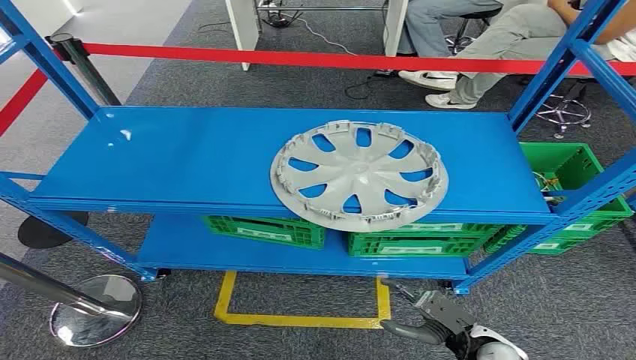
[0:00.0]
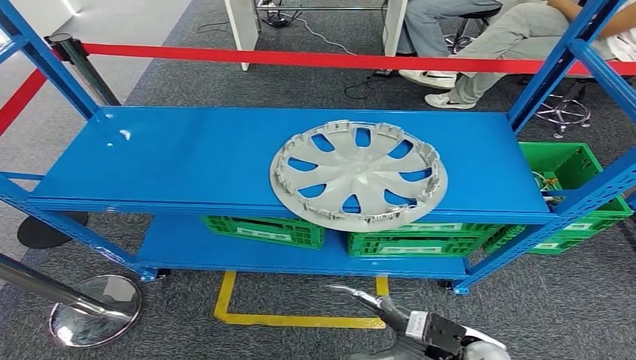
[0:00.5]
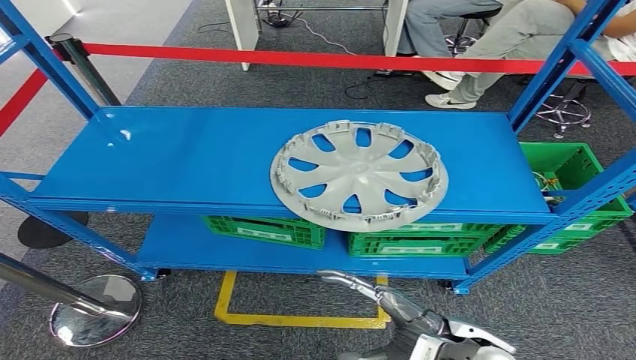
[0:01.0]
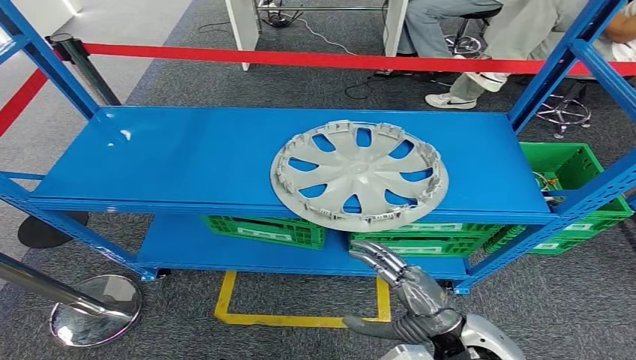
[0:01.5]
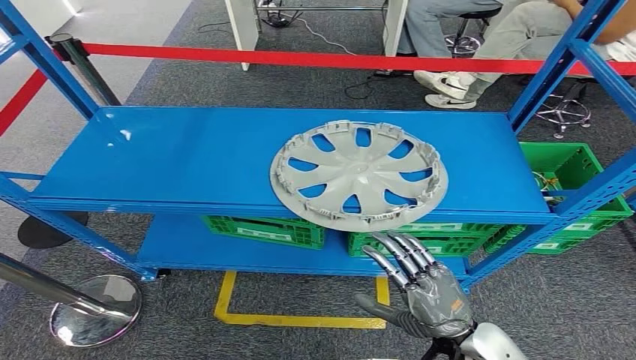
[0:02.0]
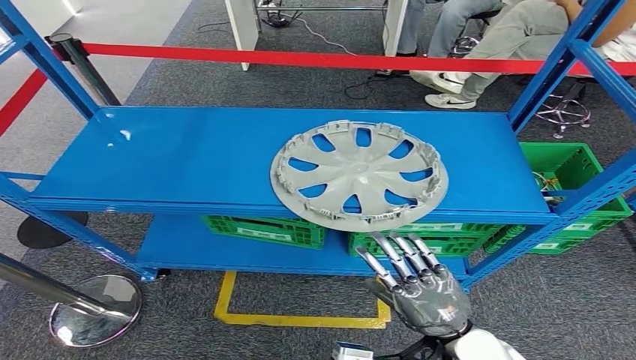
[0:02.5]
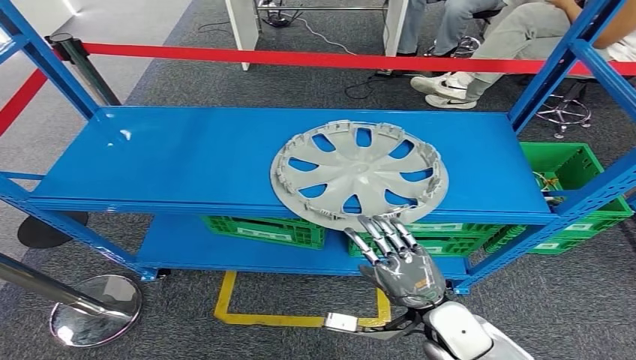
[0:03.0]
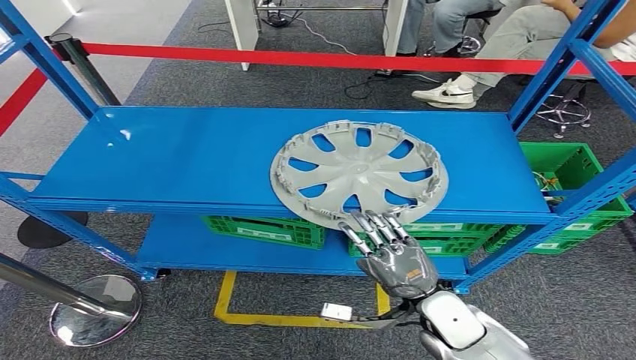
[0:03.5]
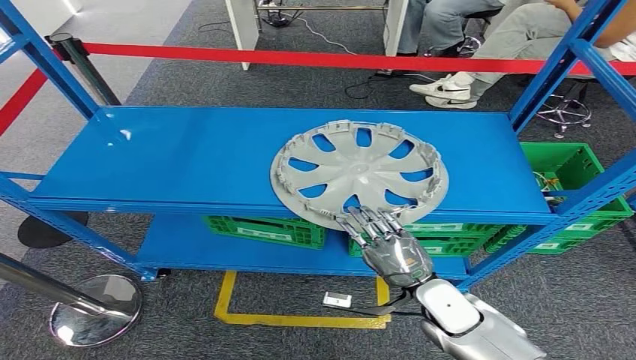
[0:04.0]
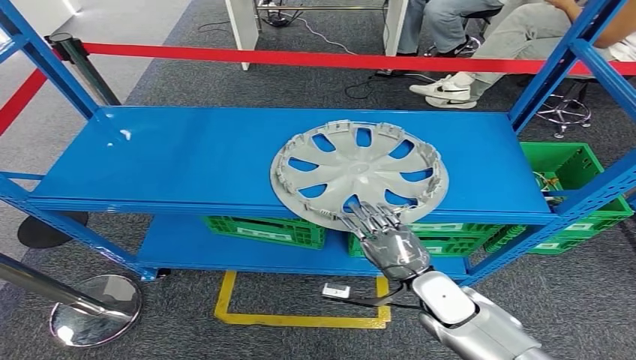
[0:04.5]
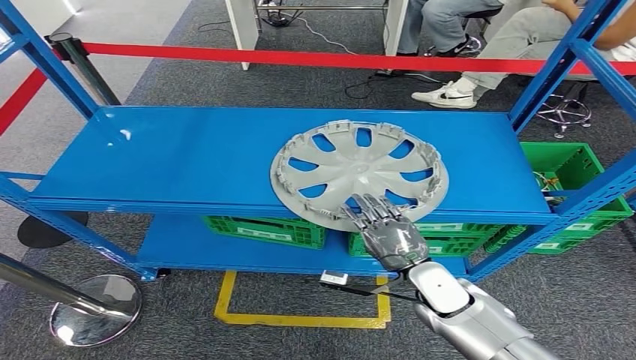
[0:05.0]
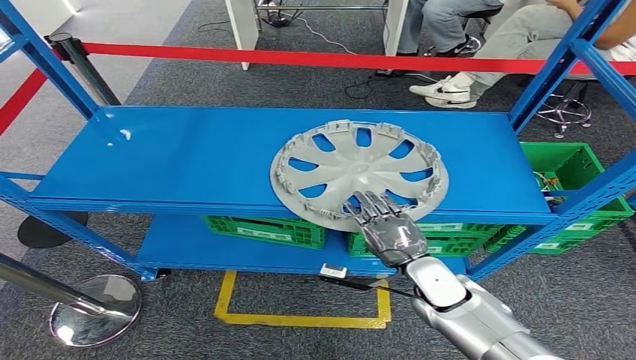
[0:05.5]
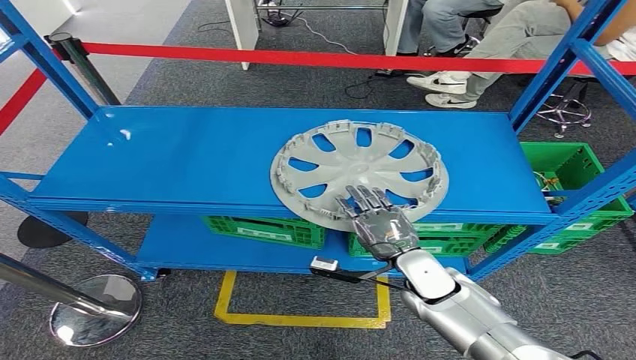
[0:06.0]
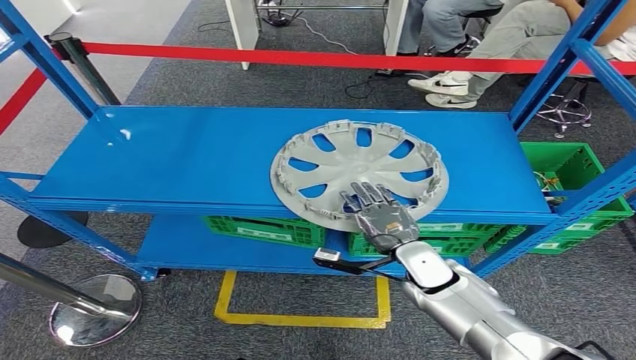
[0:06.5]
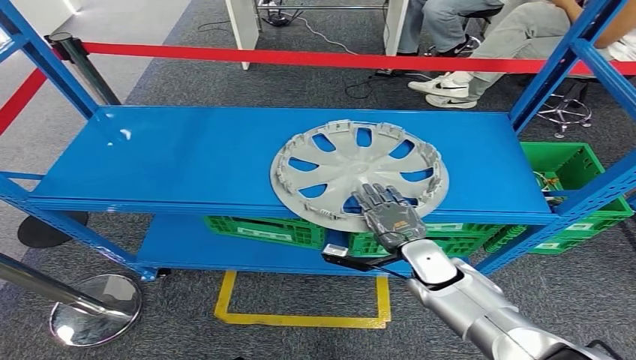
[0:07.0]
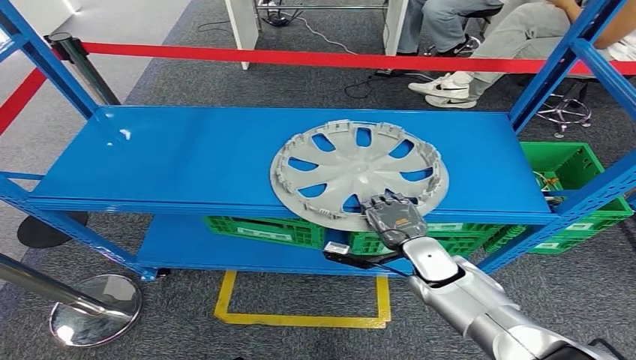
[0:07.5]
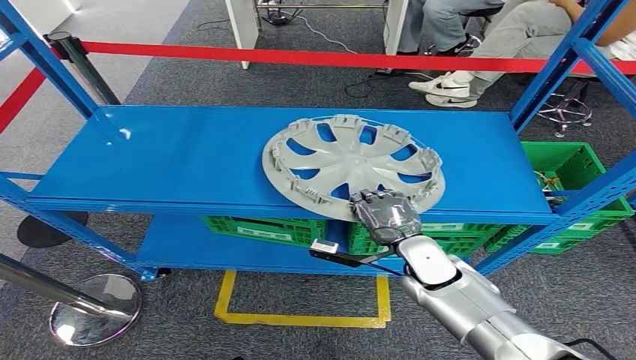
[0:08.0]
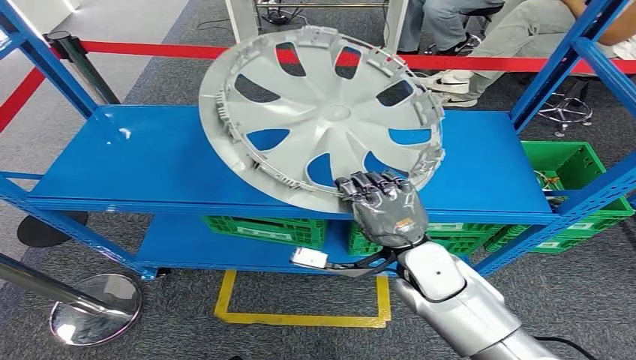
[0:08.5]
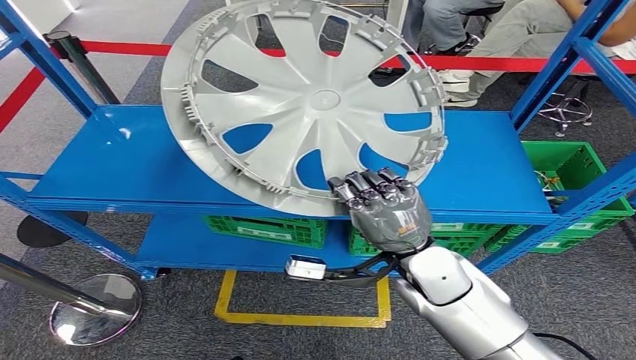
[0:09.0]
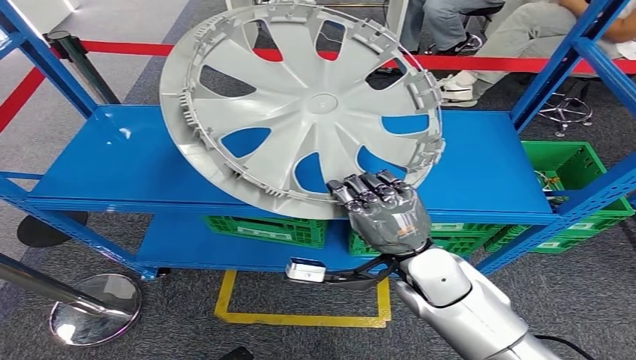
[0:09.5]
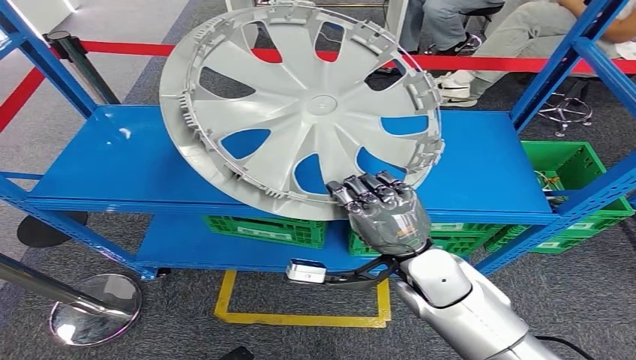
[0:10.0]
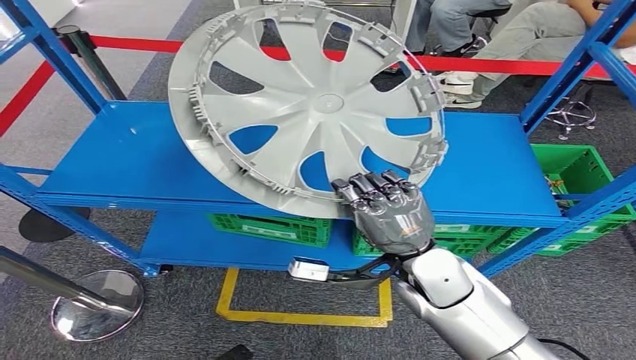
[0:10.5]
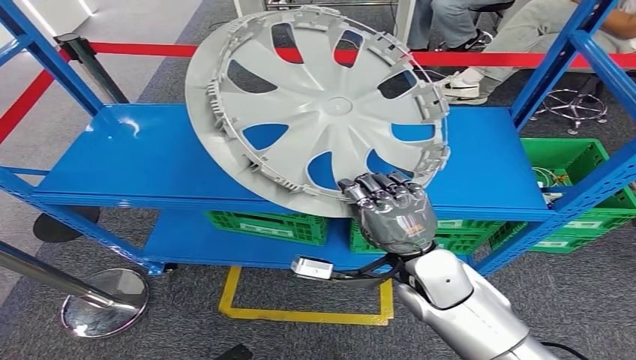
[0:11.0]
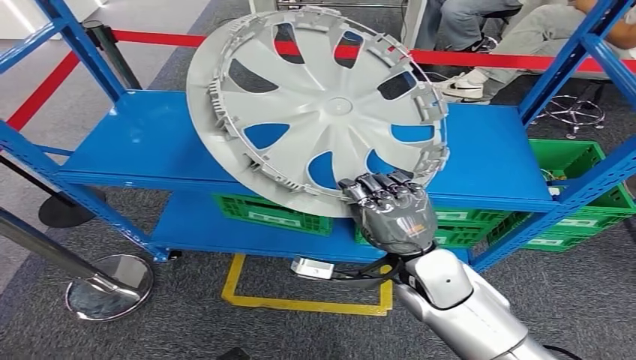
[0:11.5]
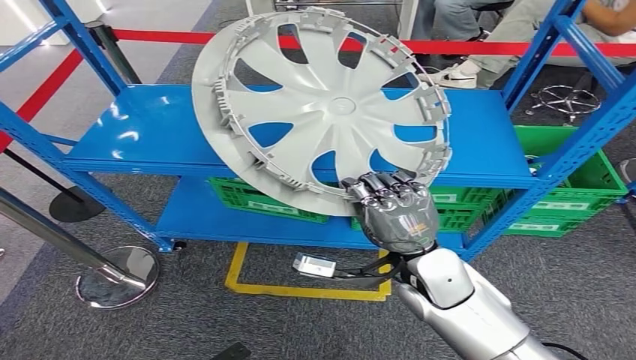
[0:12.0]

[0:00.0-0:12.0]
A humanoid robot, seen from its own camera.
0:02.0 to 0:04.0: The right hand is displaced forward by about 10 cm.
0:04.0 to 0:06.0: The right hand goes some 5 cm forward.
0:06.0 to 0:08.0: The hands make only small movements.

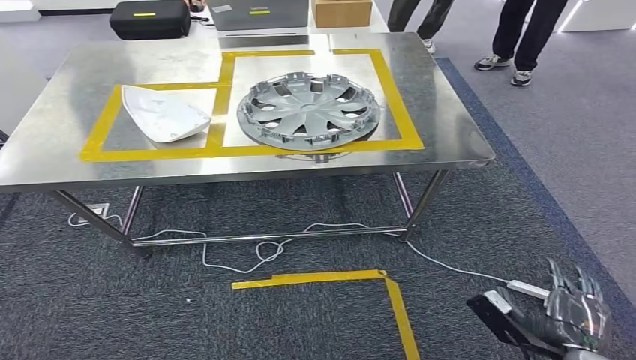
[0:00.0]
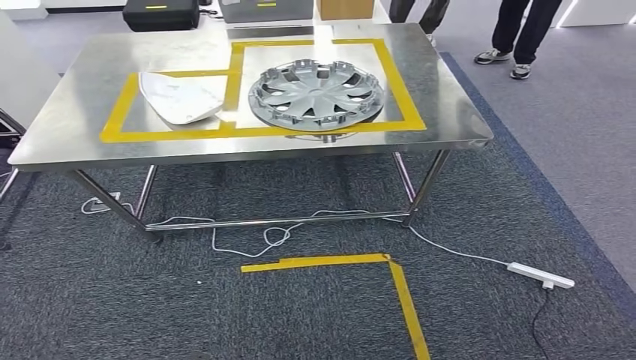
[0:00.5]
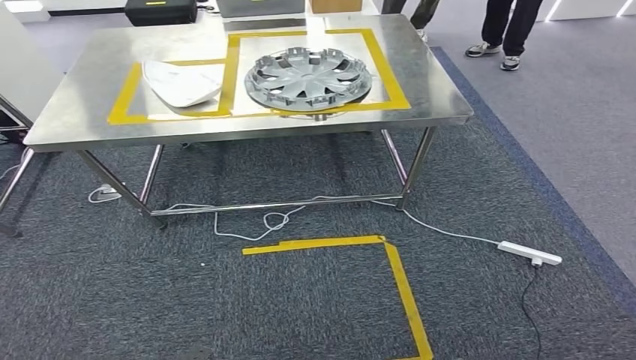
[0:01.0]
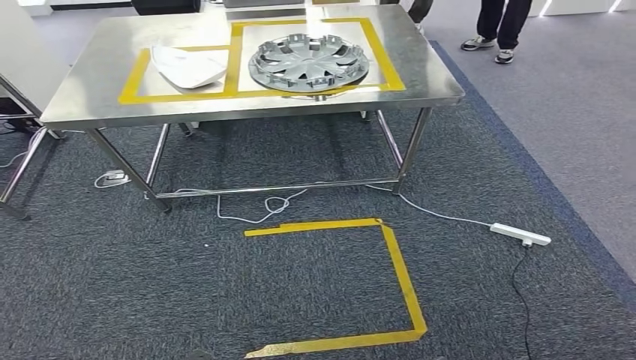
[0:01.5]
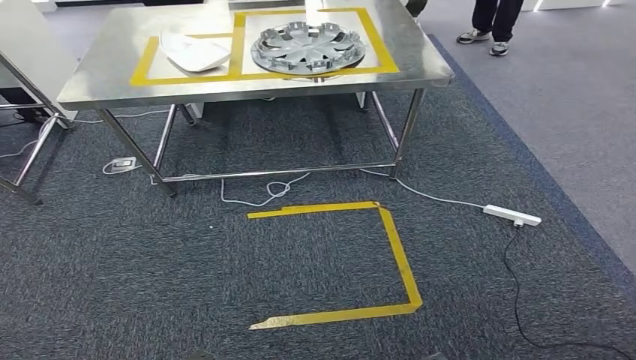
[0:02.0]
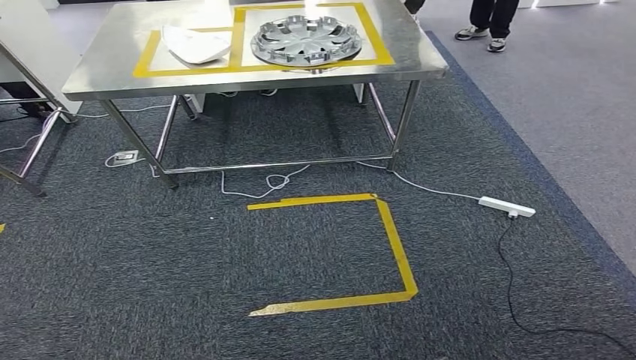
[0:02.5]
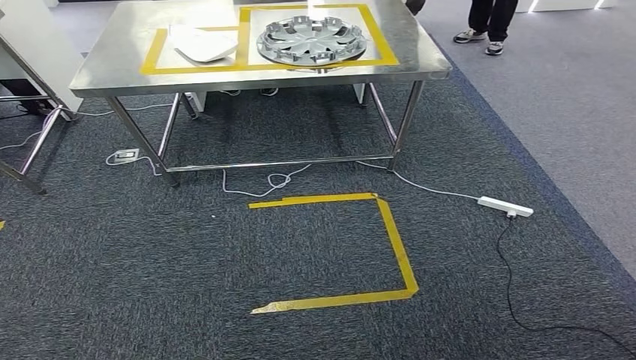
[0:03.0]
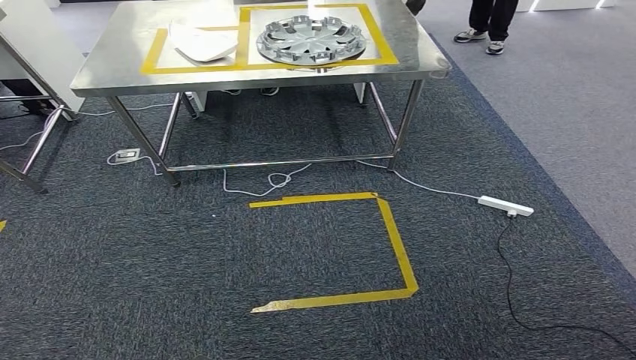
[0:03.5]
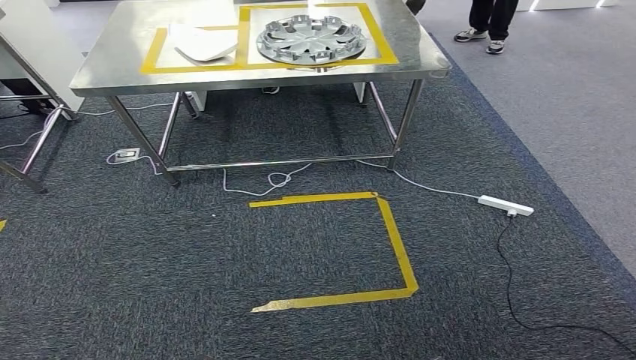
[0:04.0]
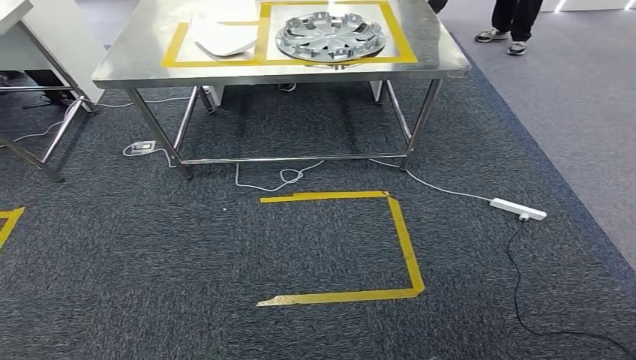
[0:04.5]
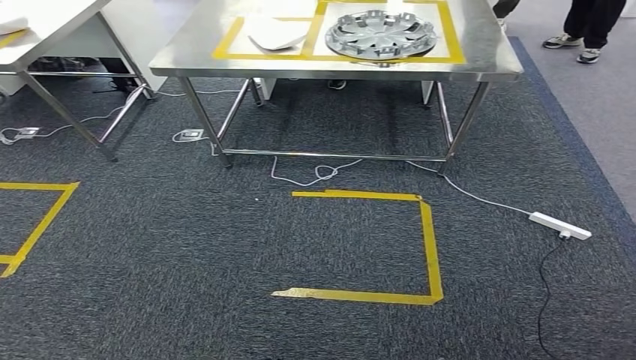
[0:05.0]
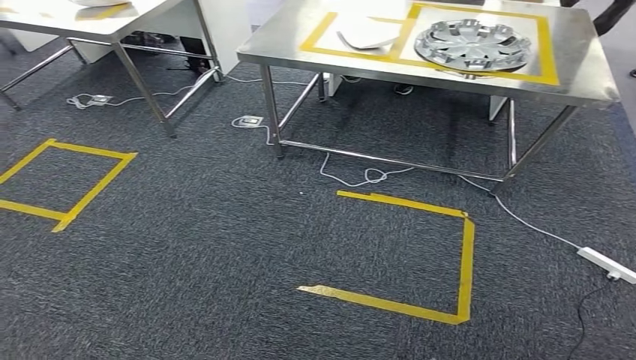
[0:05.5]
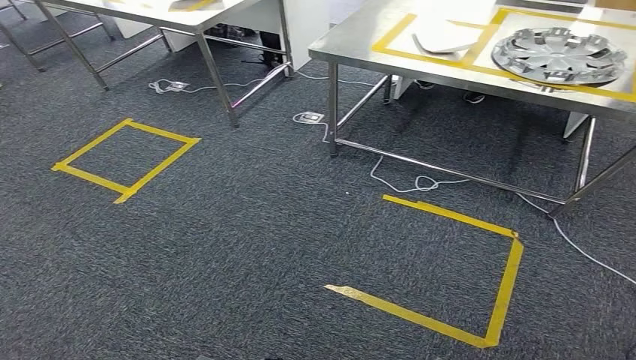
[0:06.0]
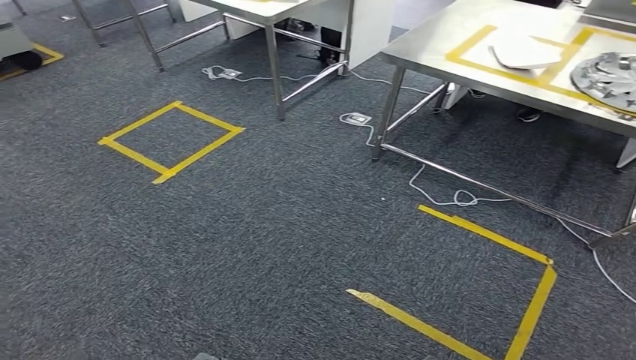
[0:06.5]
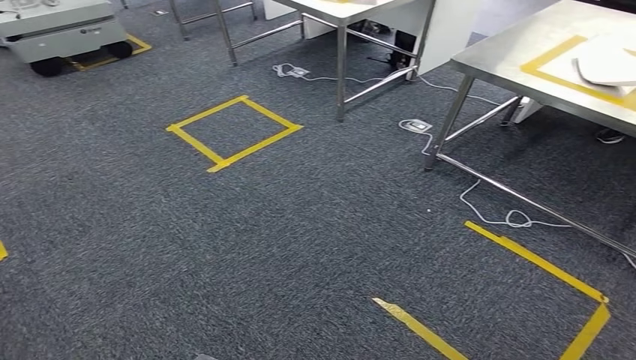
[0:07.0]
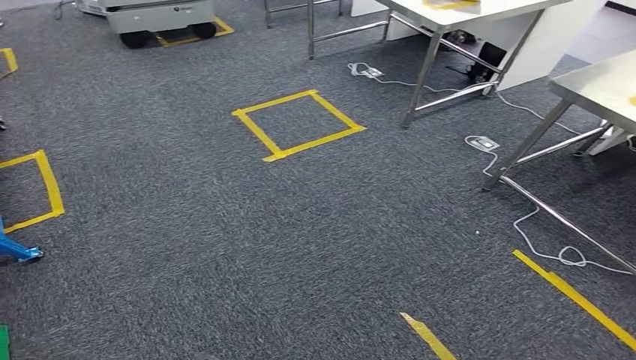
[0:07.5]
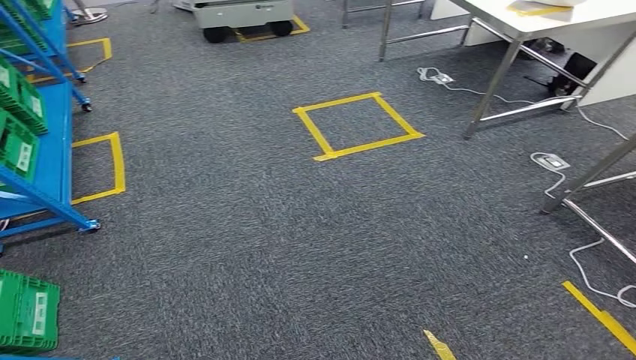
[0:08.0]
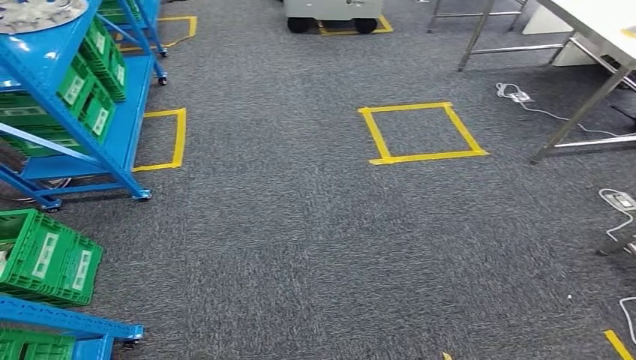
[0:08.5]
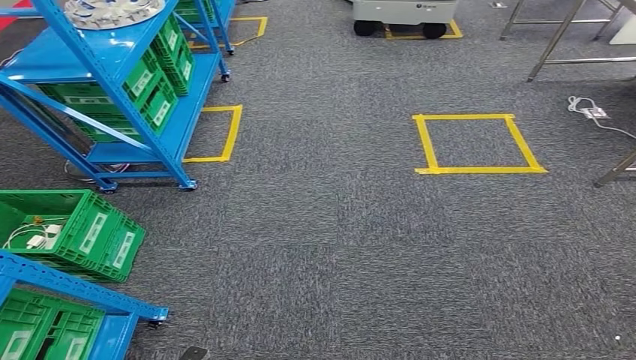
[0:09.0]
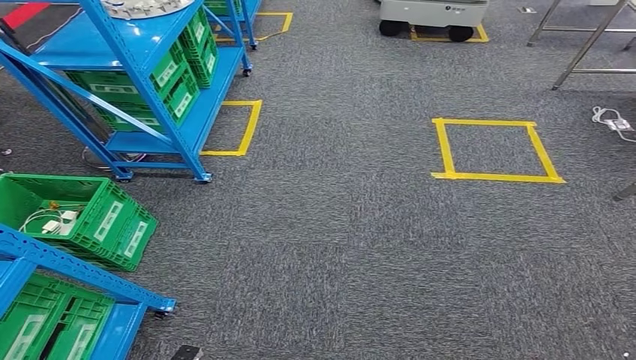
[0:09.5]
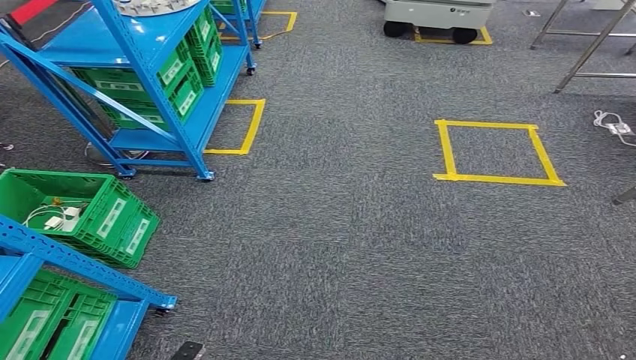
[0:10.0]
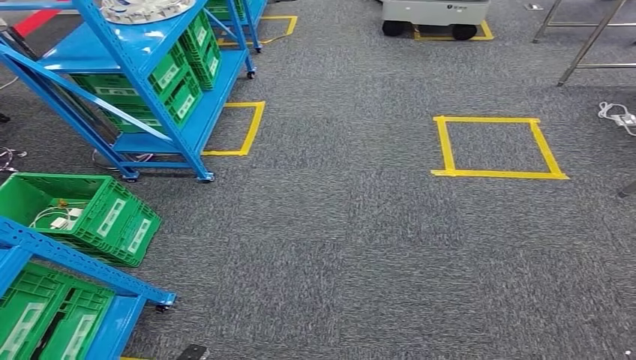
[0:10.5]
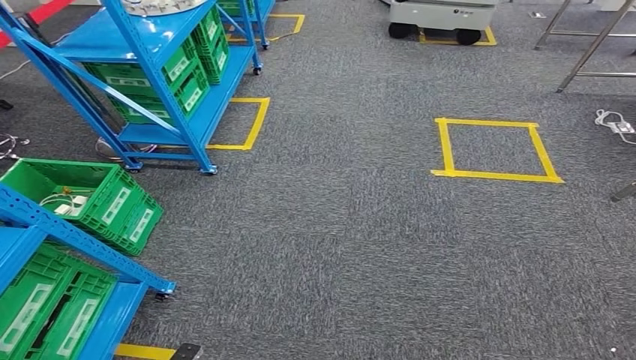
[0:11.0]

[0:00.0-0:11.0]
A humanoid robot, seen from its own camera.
0:02.0 to 0:03.5: Neither hand changes place.
